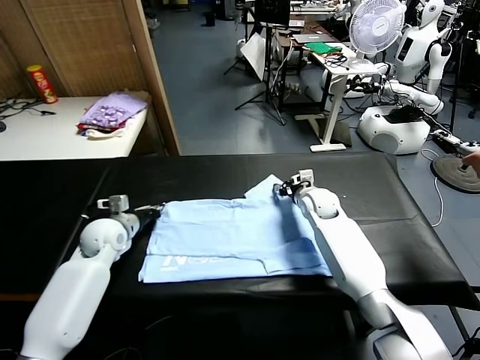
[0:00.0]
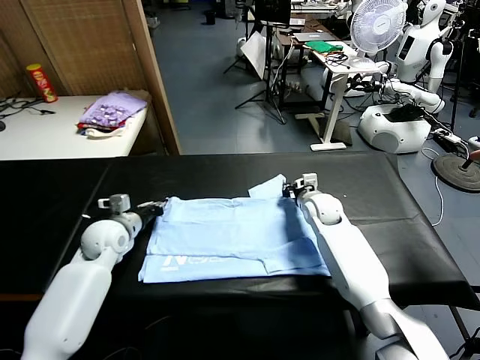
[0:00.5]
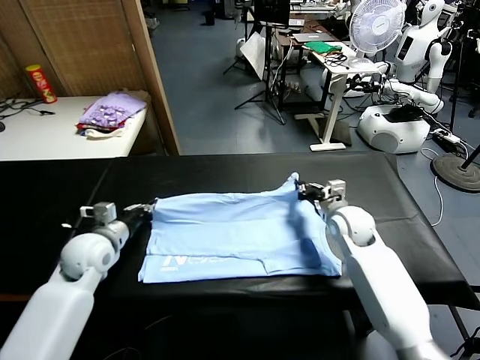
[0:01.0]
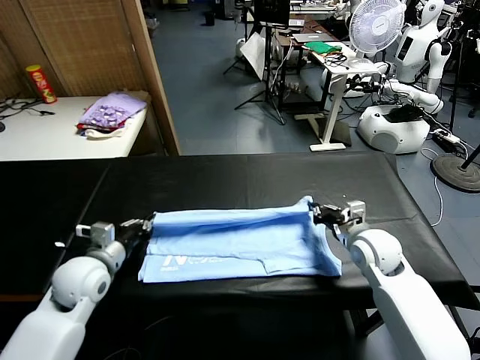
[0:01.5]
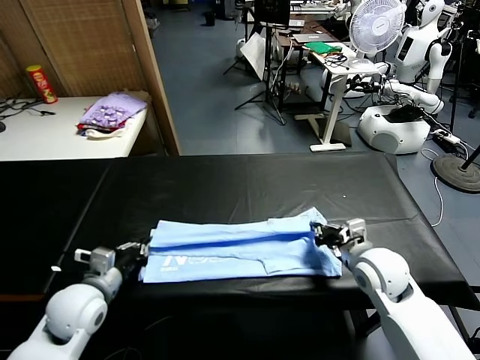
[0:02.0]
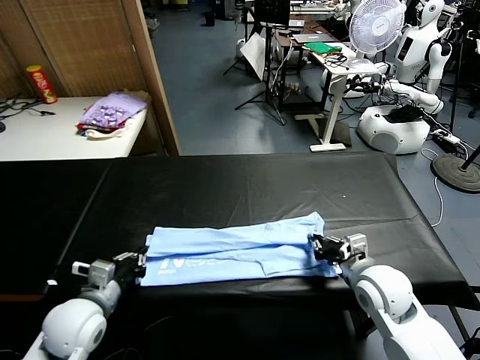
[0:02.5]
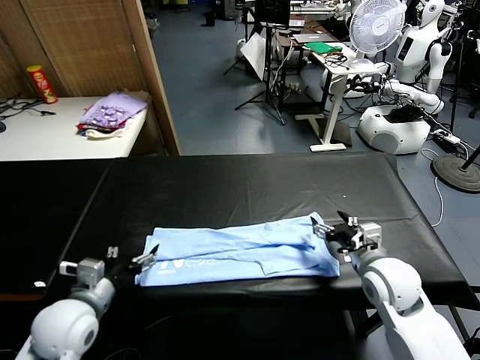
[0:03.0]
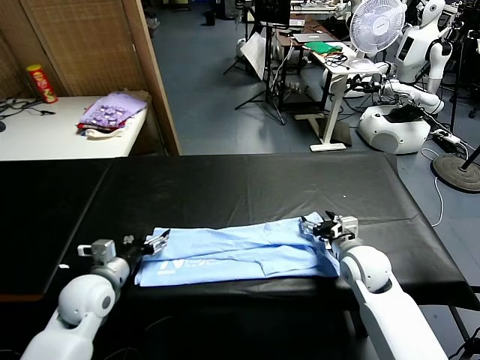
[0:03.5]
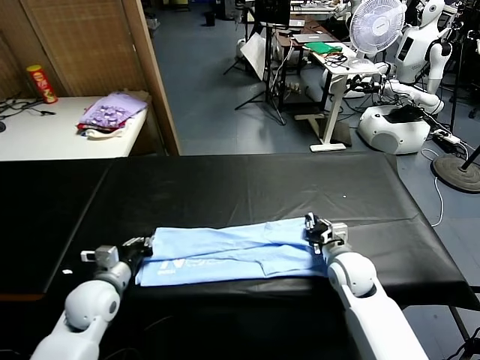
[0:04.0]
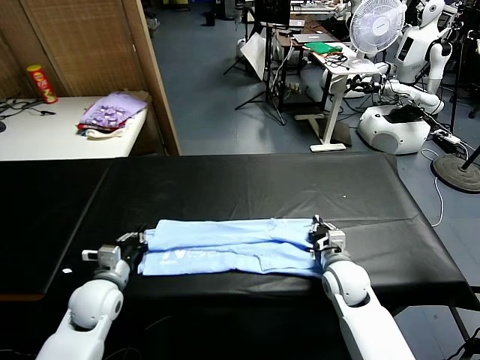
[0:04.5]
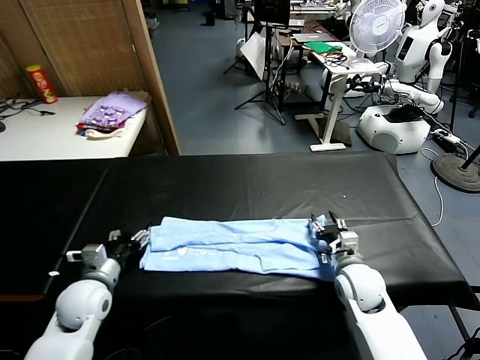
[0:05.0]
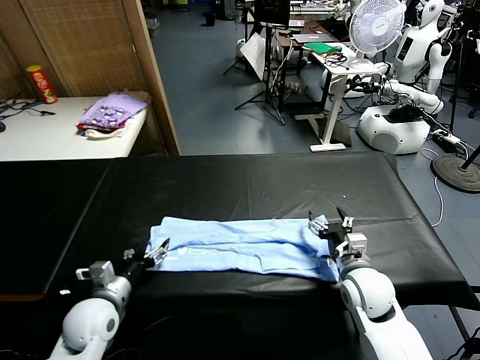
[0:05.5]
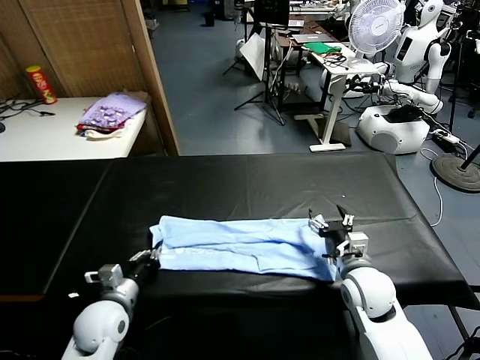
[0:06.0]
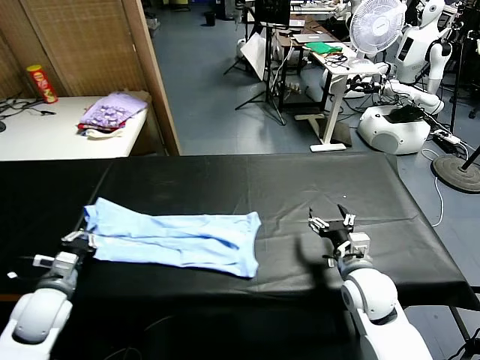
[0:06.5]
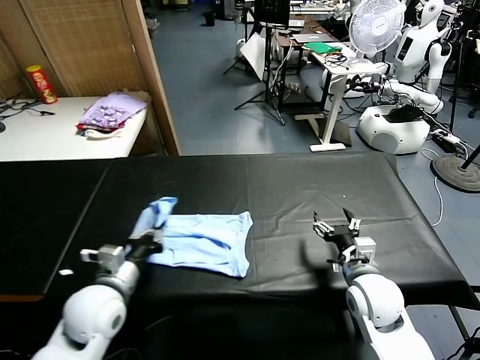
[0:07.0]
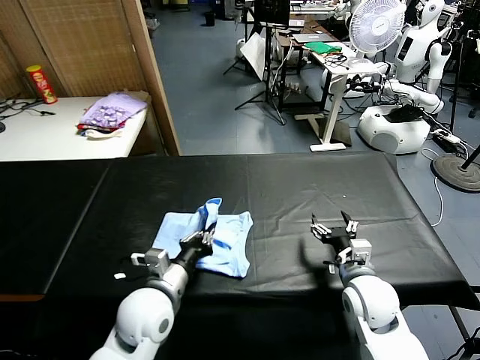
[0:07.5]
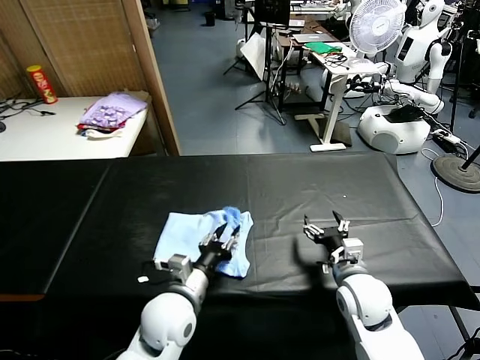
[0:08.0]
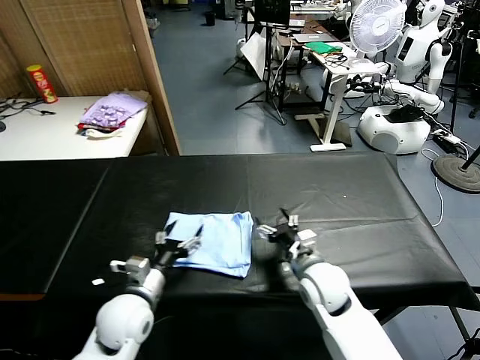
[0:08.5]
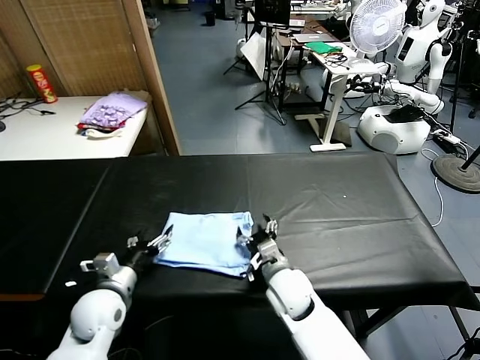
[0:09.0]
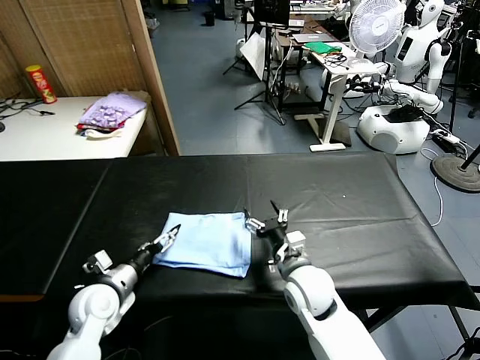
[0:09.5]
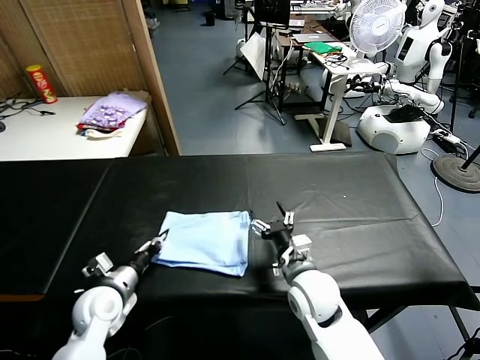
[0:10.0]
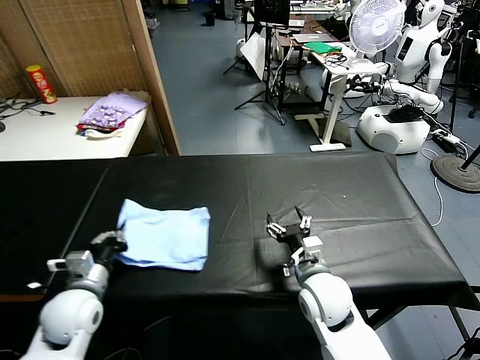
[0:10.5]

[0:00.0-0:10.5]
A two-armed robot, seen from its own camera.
Task of the whole recording: fold and organize the clothes.
Step, 0:00.5 to 0:02.5: use both grippers to drag the upper edge of the fabric backward and fold it over the lower edge.
Step, 0:03.0 to 0:06.0: use the left gripper to clamp the left edge of the fabric.
Step, 0:06.5 to 0:08.0: use the left gripper to drag the left edge of the fabric to the left and folds it over the right edge.
0:00.0 to 0:02.0: The grippers both shift backward by about 20 cm.
0:02.0 to 0:04.0: The left gripper ends up some 5 cm from where it was, and opens, then closes once more. The right gripper moves downward, roughly 10 cm, and opens, then closes once more.
0:04.0 to 0:06.5: The left gripper moves to the left, approximately 10 cm, and opens and closes again; the right gripper goes some 5 cm backward, and opens.
0:06.5 to 0:08.5: The left gripper moves to the right, roughly 15 cm, and opens its fingers; the right gripper travels to the left by about 10 cm.
0:08.5 to 0:10.5: The left gripper is displaced to the left by about 10 cm, and closes its fingers.

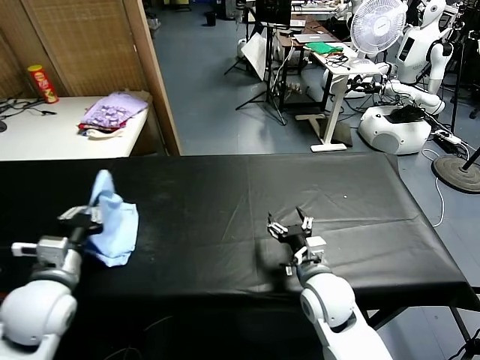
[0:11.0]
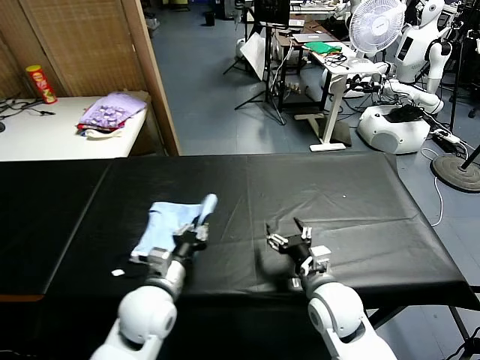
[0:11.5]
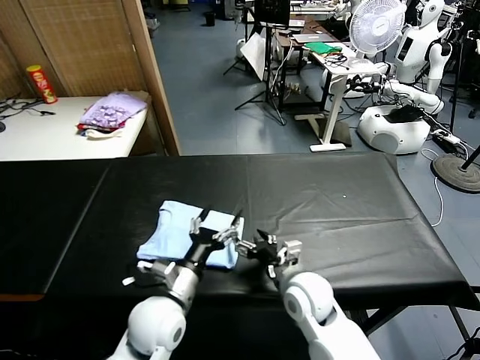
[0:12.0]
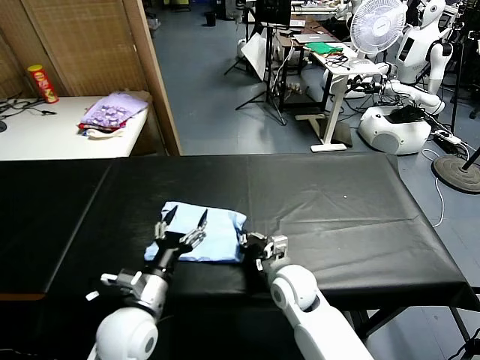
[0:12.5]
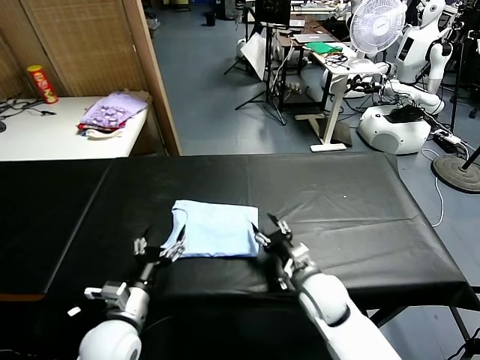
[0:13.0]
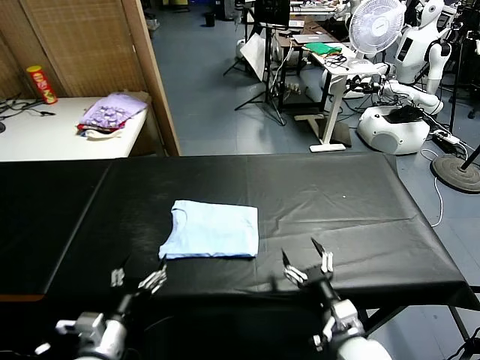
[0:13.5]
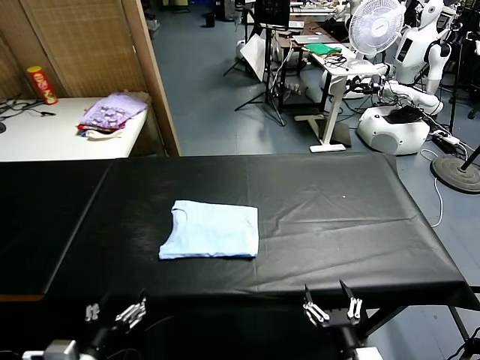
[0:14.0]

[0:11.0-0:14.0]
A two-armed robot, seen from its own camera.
Task of the whole recording: fold and organize the clothes.
Step, 0:12.0 to 0:12.5: Drag the clothes to the center of the table.
0:11.0 to 0:12.5: The left gripper goes some 15 cm to the right and downward, and opens its fingers. The right gripper travels to the left by roughly 5 cm, and closes its fingers.
0:12.5 to 0:14.0: The left gripper is displaced backward and to the left by some 15 cm, while the right gripper heads backward and to the right, covering approximately 25 cm, and opens.

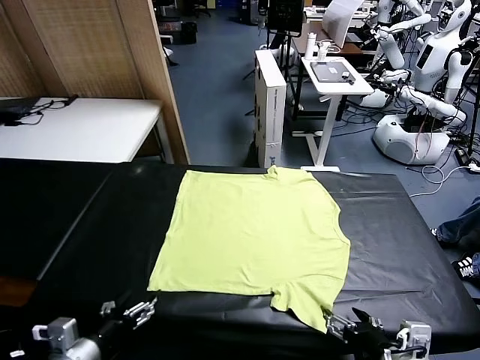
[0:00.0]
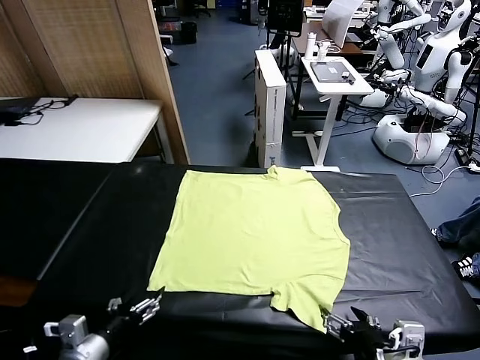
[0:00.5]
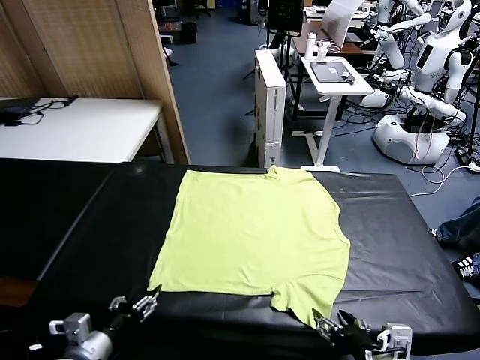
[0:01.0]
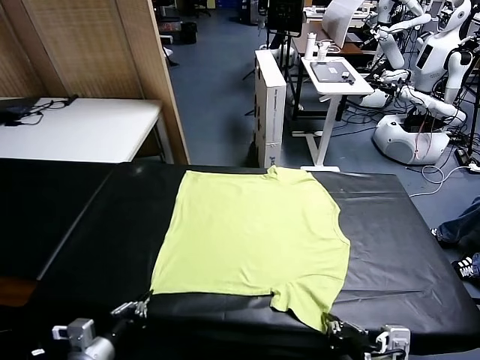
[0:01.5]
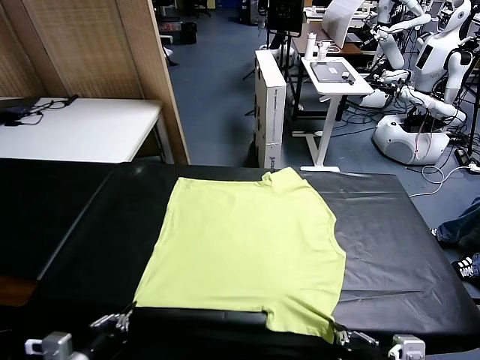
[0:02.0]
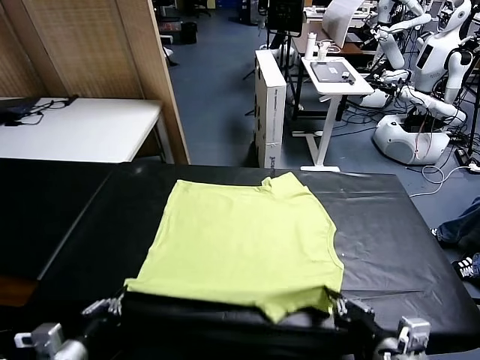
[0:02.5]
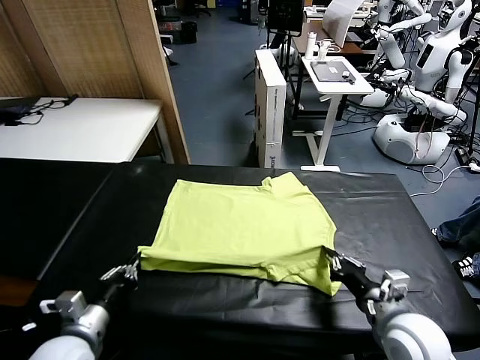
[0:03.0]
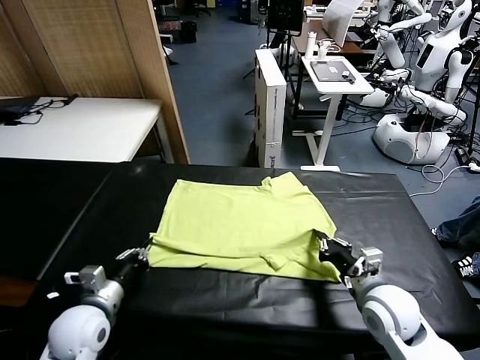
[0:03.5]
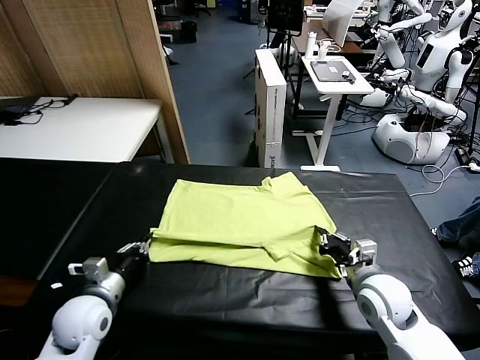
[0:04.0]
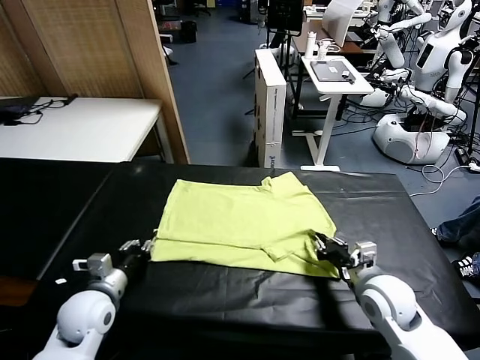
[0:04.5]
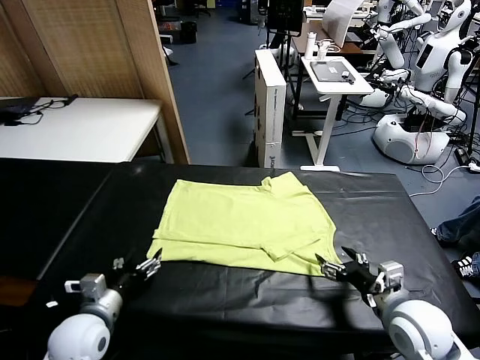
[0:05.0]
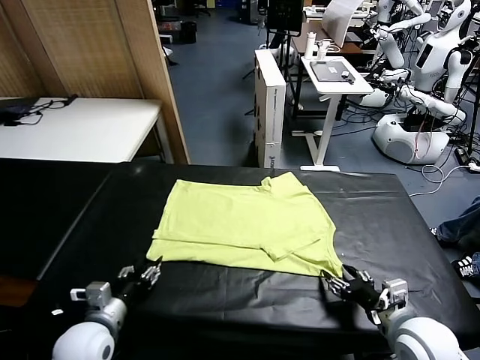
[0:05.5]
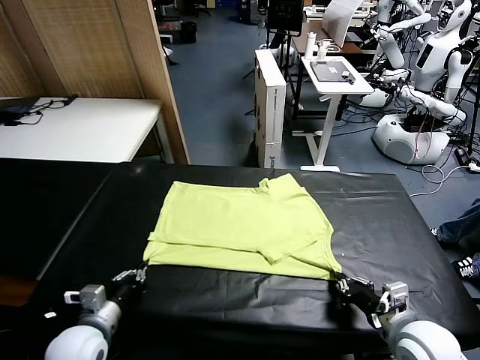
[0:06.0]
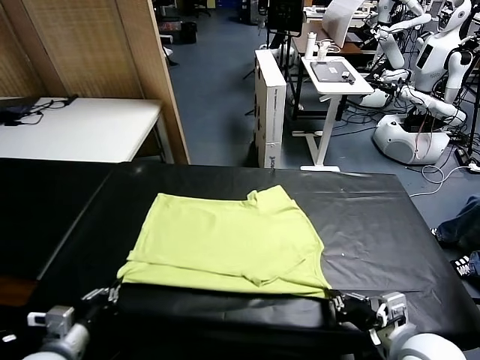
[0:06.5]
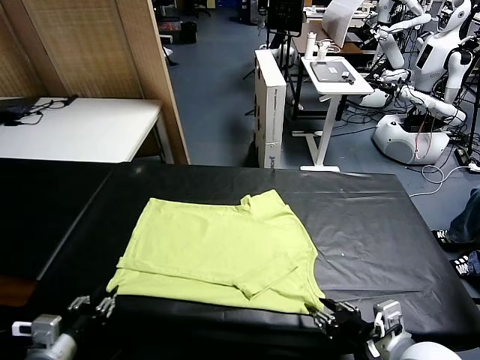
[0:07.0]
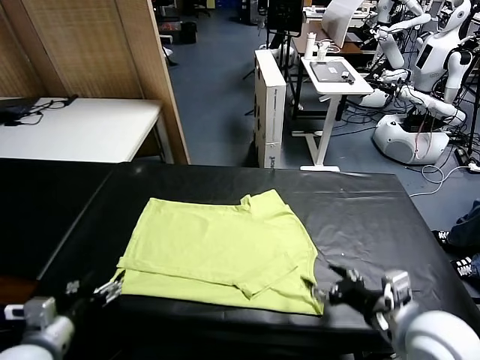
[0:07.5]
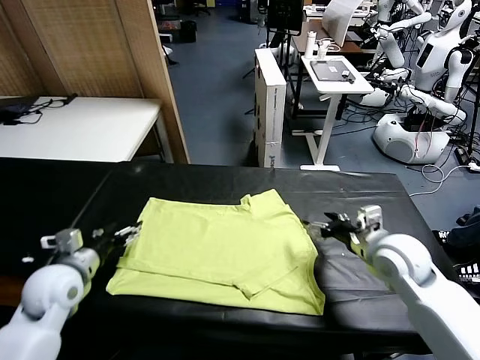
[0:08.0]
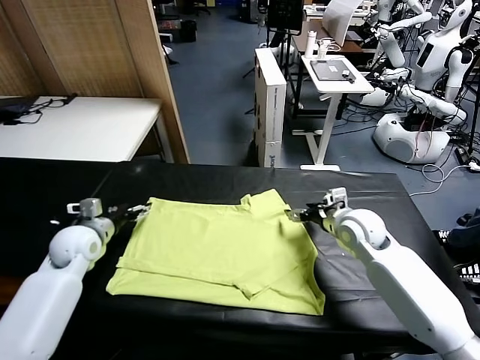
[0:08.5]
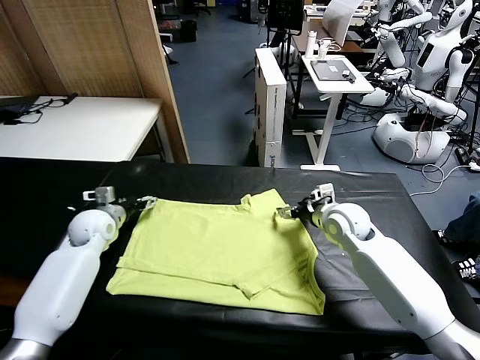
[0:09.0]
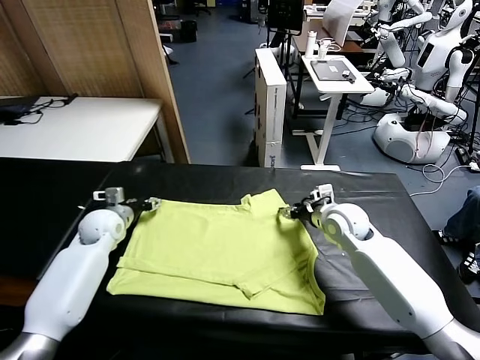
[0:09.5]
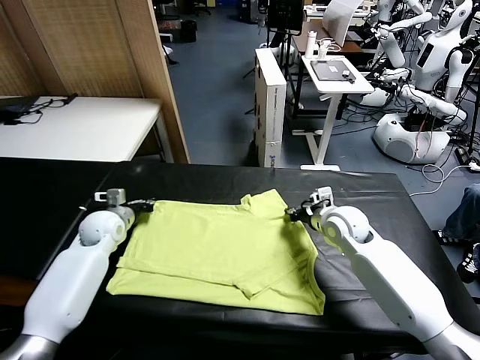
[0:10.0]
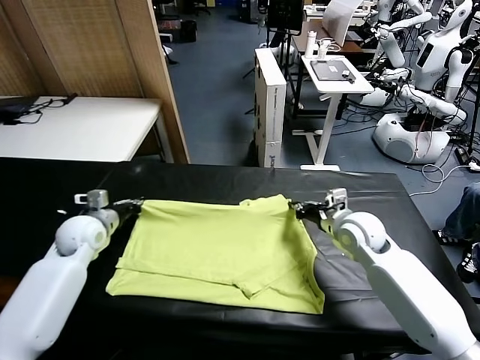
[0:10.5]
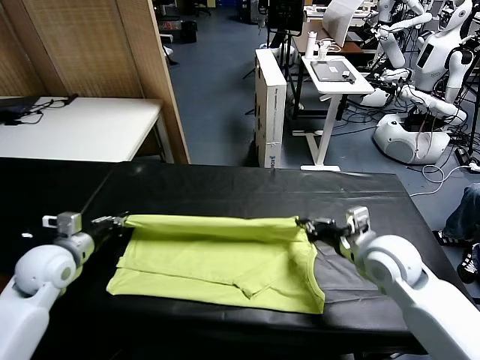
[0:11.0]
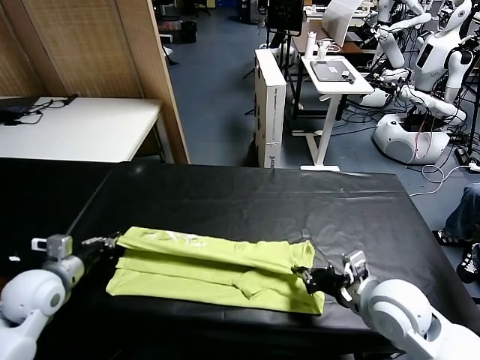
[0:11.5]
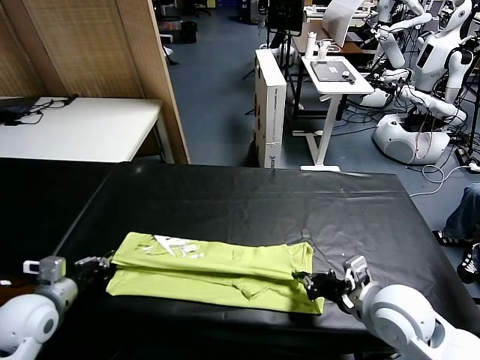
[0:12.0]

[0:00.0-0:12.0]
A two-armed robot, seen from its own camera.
Task of the whole recording: fold and organize the clothes.
Step, 0:00.0 to 0:01.5: use both grippers simultaneously to clamp the lower edge of the clothing fabric.
Step, 0:02.0 to 0:04.5: use both grippers to drag the lower edge of the fabric forward and fold it over the upper edge.
Step, 0:05.0 to 0:07.0: Drag the clothes downward with both gripper.
Step, 0:07.5 to 0:10.0: use both grippers simultaneously to clamp the upper edge of the clothing fabric.
0:02.0 to 0:04.0: Both grippers move forward, roughly 15 cm.
0:04.0 to 0:06.0: Both grippers travel together backward, roughly 10 cm. The right gripper opens, then closes again. The left gripper opens, then closes once more.
0:06.0 to 0:08.0: Both grippers travel together forward, approximately 20 cm. The right gripper opens up, while the left gripper opens up.
0:08.0 to 0:10.0: The left gripper travels forward by some 10 cm, and closes its fingers. Meanwhile the right gripper closes its fingers.
0:10.0 to 0:12.0: Both grippers move backward, some 20 cm.
